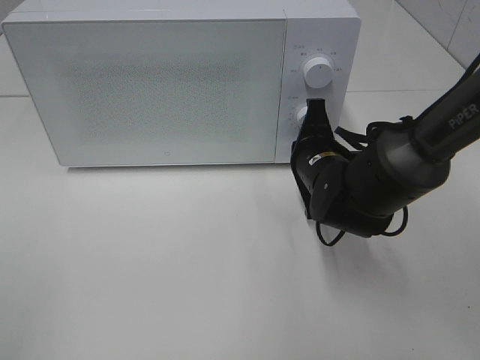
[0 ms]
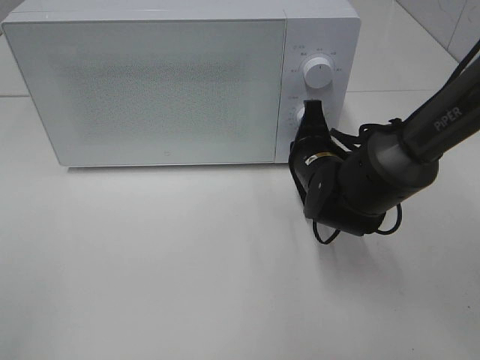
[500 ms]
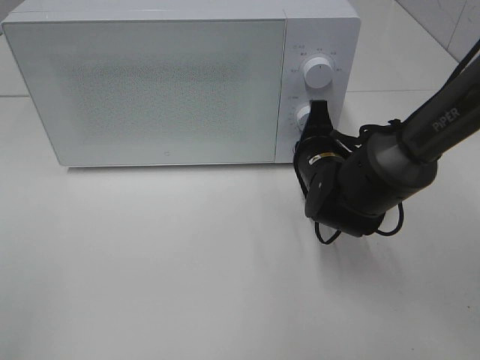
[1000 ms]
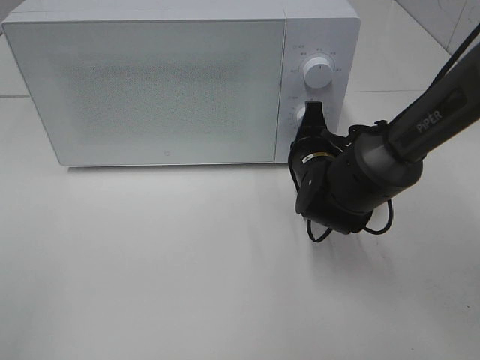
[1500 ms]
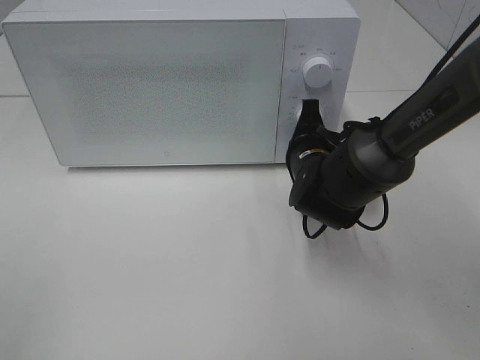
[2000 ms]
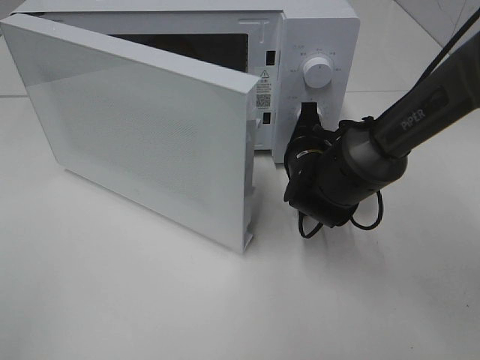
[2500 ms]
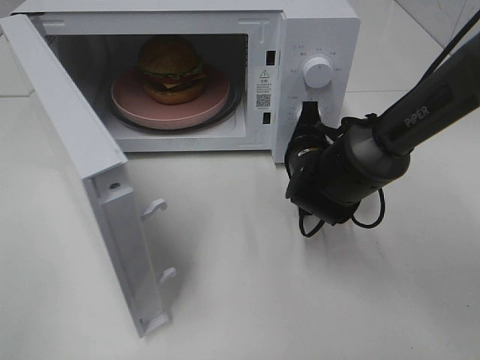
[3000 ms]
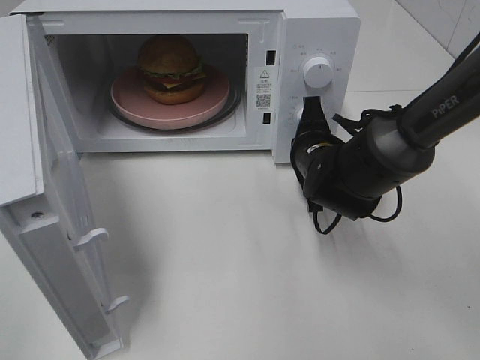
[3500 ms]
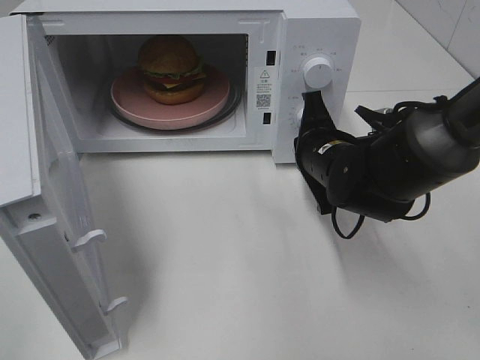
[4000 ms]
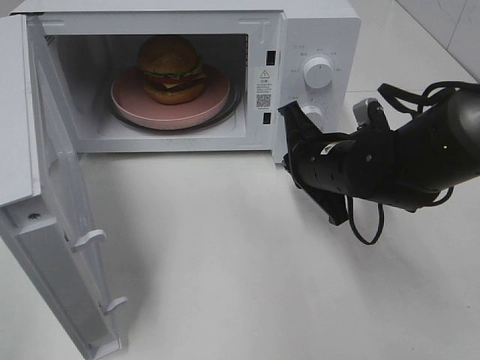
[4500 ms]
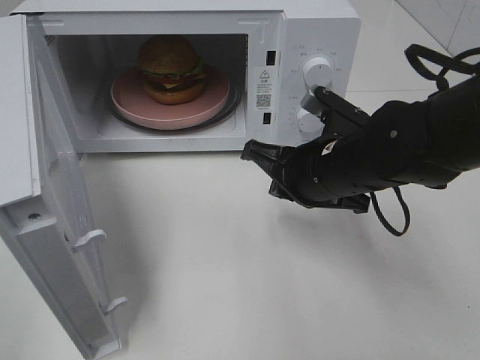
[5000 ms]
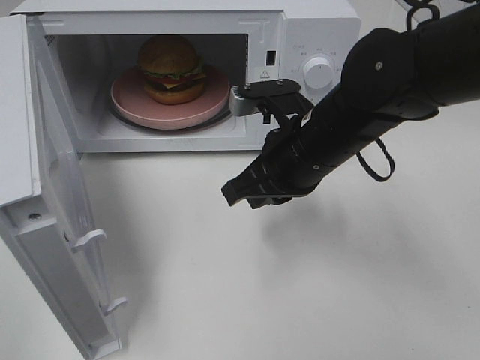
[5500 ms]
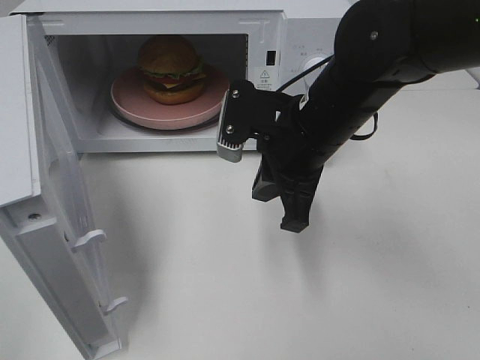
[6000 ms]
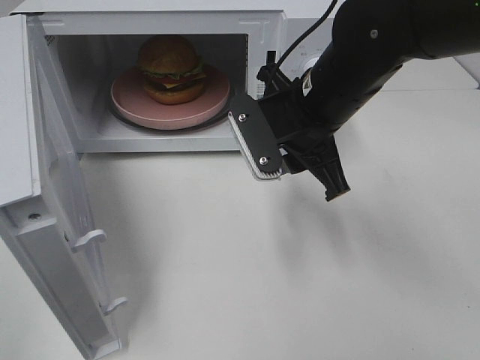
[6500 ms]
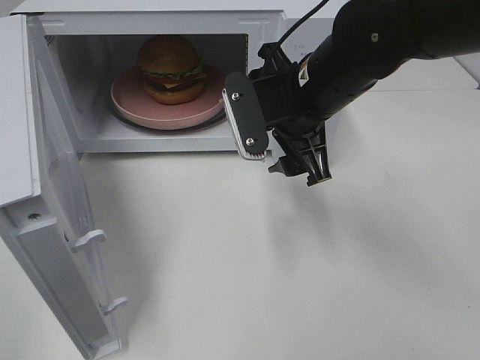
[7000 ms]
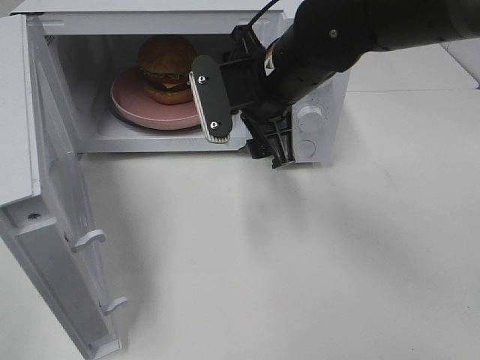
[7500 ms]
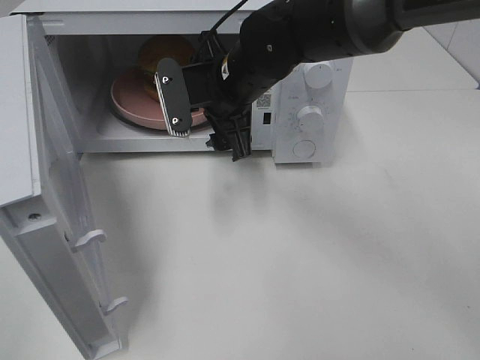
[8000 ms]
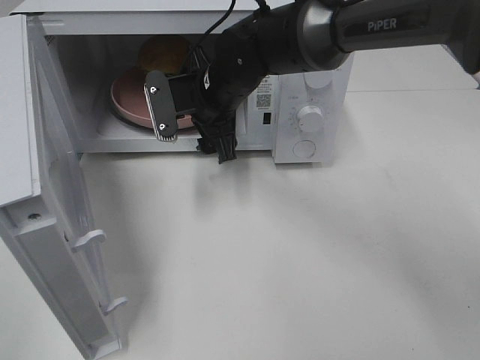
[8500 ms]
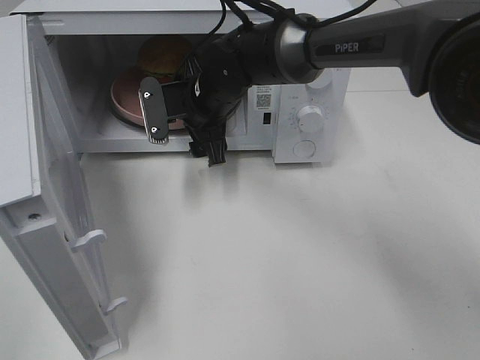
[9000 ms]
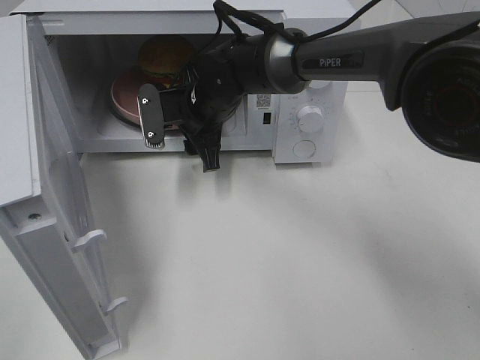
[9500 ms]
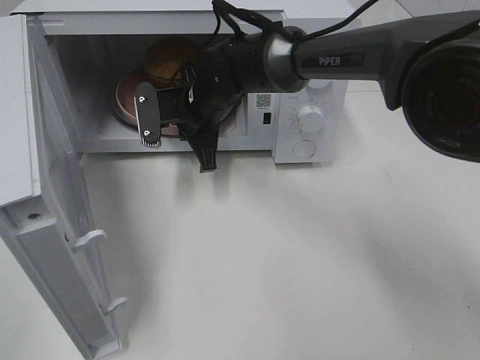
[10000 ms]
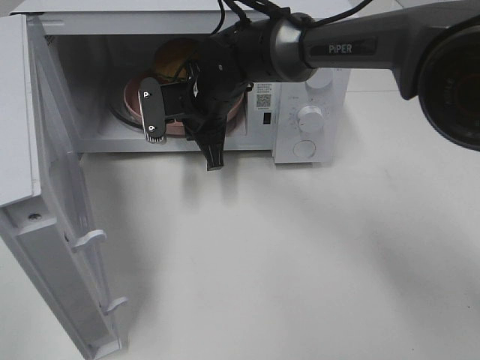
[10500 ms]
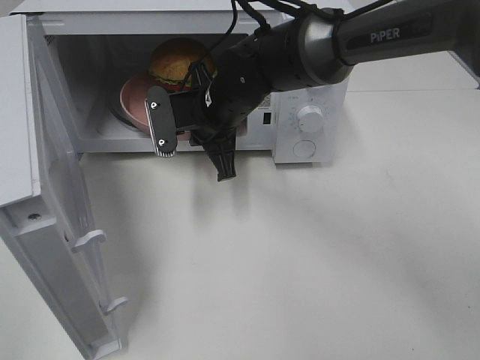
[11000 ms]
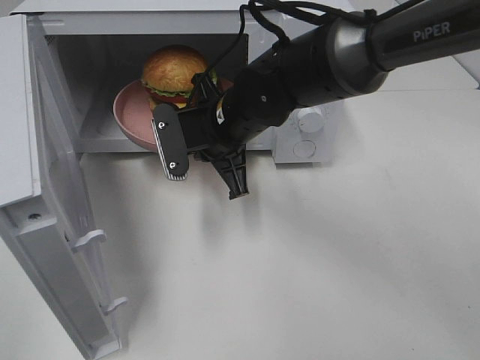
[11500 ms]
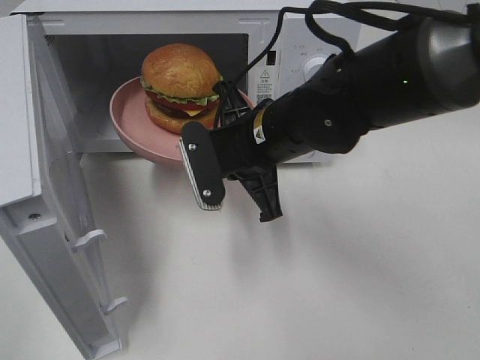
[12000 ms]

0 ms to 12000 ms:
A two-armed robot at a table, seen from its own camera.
Task of the whole recording: Heat the burger.
Step, 0 ms to 3500 ms: Right hand: press the switch.
Step, 4000 ms to 9500 ms: Right hand: grab the plate with the hamburger.
0 ms to 2000 ms: The grippers move only a little.
4000 ms to 6000 ms: The right gripper goes some 10 cm upward.
6000 ms to 8000 ms: The right gripper shifts some 10 cm forward and to the left, and opens up.
8000 ms to 10000 ms: The right gripper moves downward and forward, some 10 cm, and closes its fingers.
10000 ms to 12000 ms: The right gripper shifts roughly 15 cm backward and to the right.

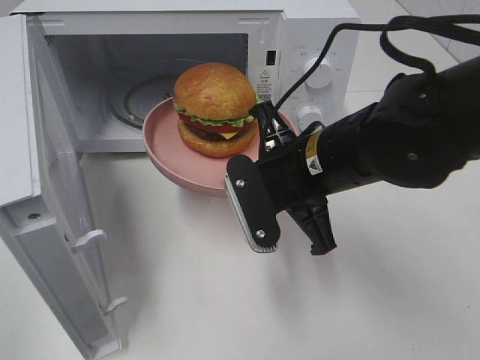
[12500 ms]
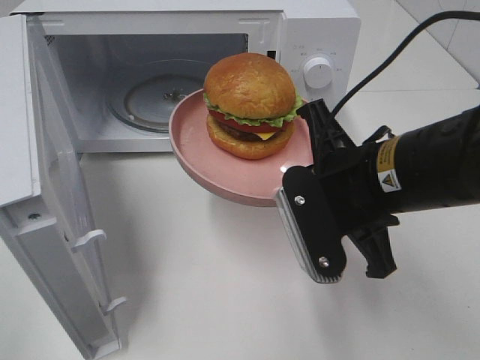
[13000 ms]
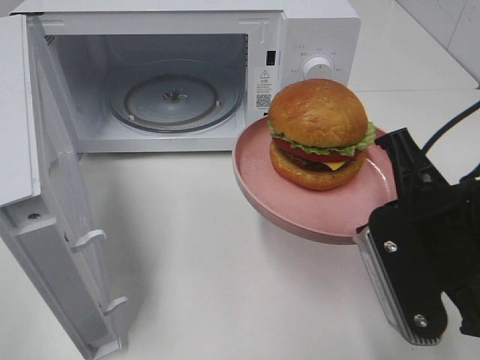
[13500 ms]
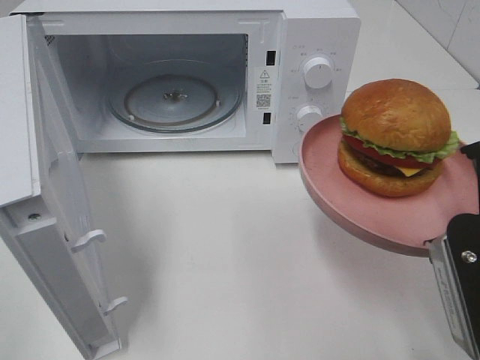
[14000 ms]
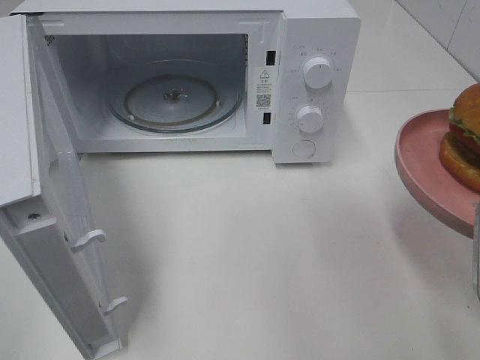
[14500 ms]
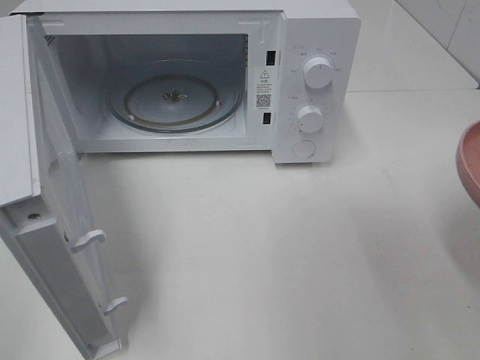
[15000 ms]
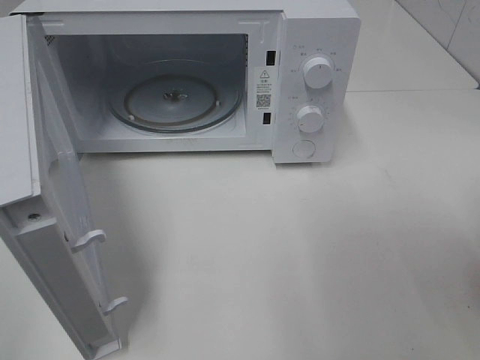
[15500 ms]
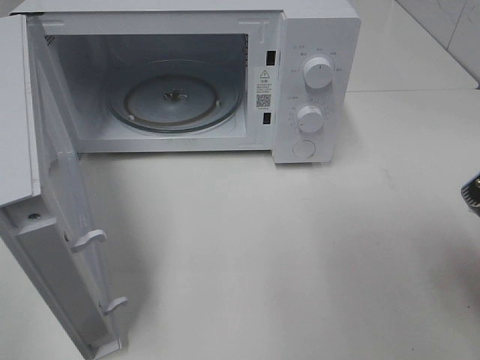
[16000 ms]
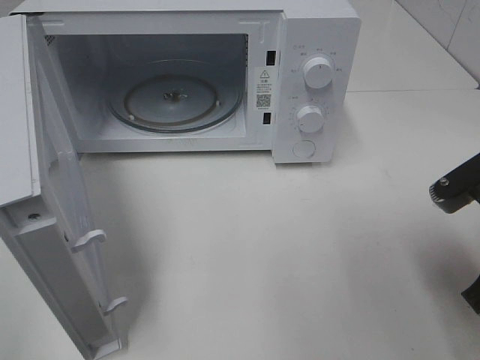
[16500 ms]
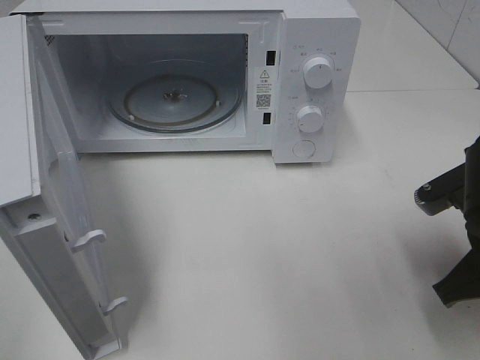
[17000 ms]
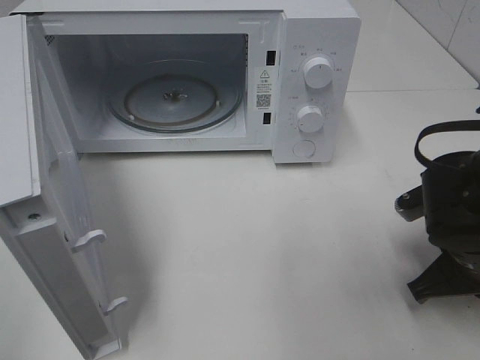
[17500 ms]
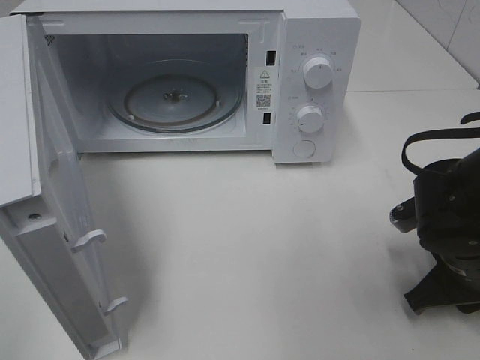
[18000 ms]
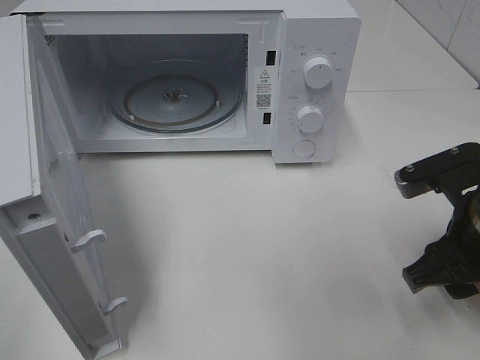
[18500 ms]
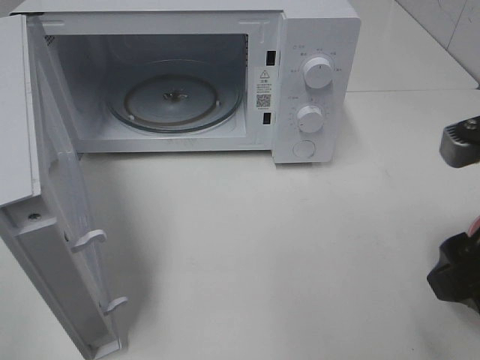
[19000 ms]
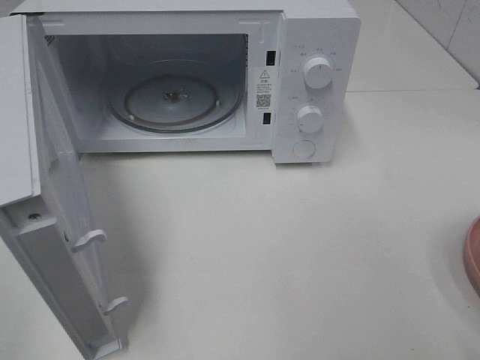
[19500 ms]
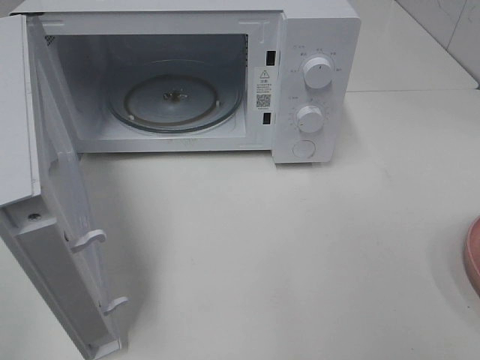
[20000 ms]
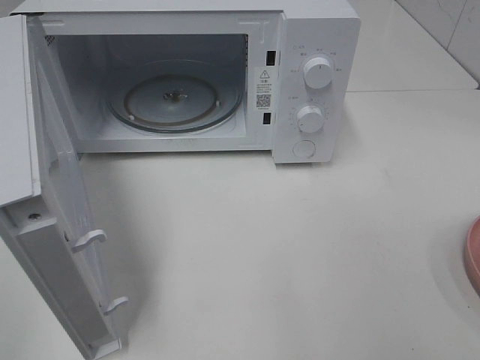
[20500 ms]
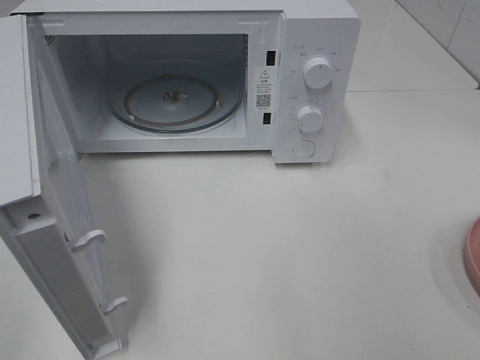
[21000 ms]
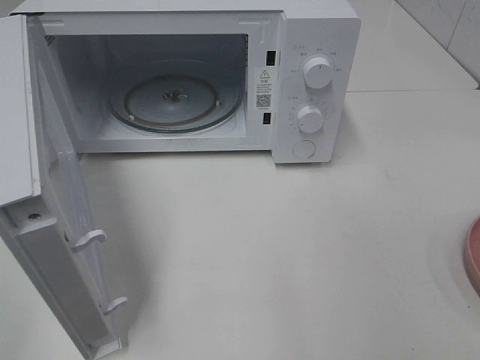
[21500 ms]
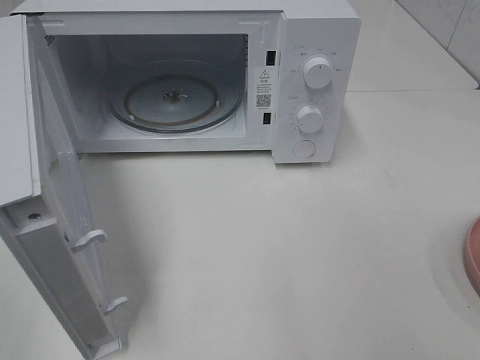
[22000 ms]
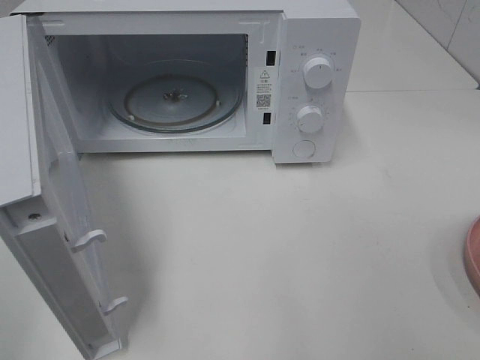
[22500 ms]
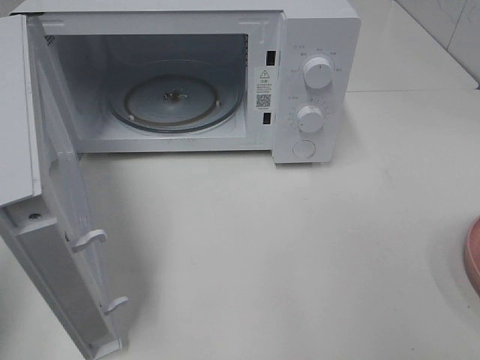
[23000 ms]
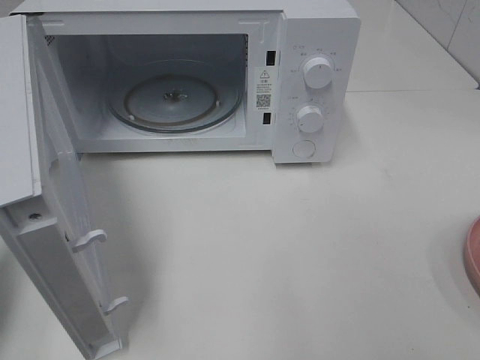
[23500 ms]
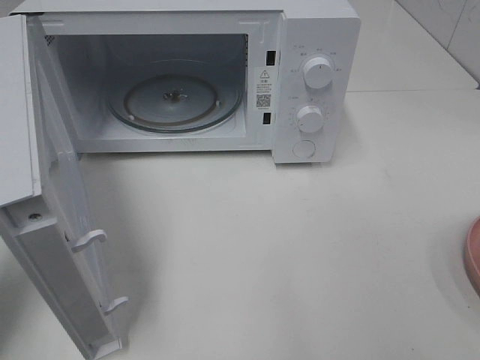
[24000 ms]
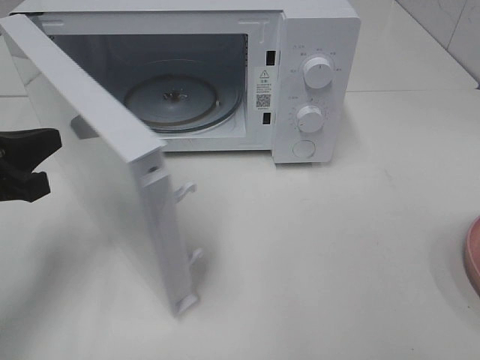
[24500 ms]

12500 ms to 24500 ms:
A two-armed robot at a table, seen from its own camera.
Task of the whole recording: Heat the burger.
Step, 12500 ms to 18000 ms: Right hand: place the plate on the table.
12500 ms to 14500 ms: The right gripper goes roughly 20 cm to the right and backward.
14500 ms to 16500 ms: The right gripper shifts by approximately 5 cm.
16500 ms to 18500 ms: The right gripper reaches roughly 10 cm downward, then returns, and opens its fingers.
18500 ms to 20500 ms: The right gripper travels backward, upward and to the right by about 25 cm.
22500 ms to 24500 ms: The left gripper heads forward and downward, covering approximately 20 cm, and closes its fingers.

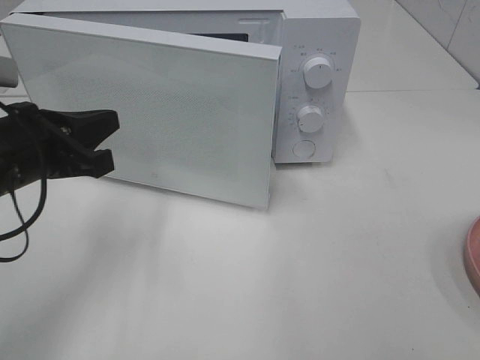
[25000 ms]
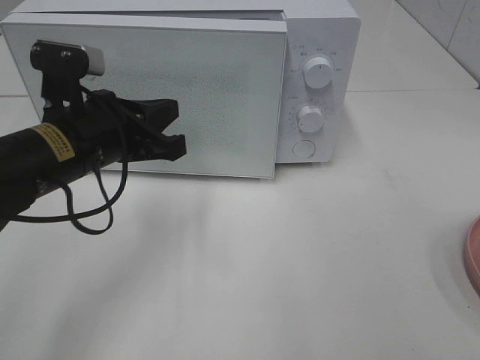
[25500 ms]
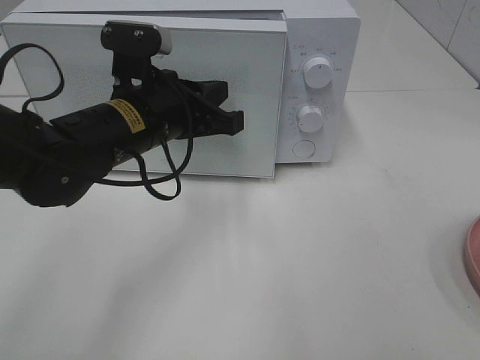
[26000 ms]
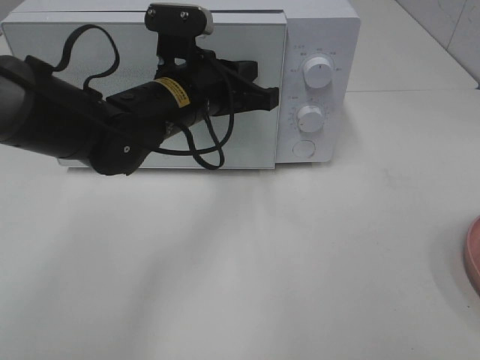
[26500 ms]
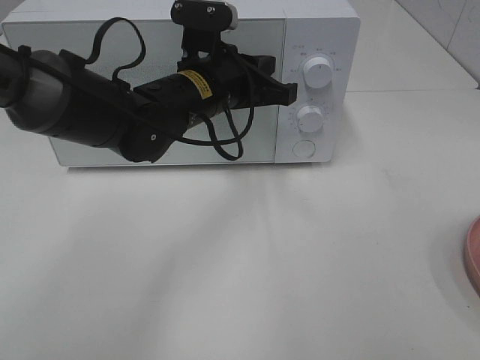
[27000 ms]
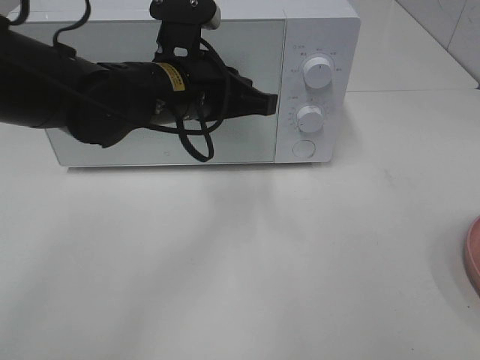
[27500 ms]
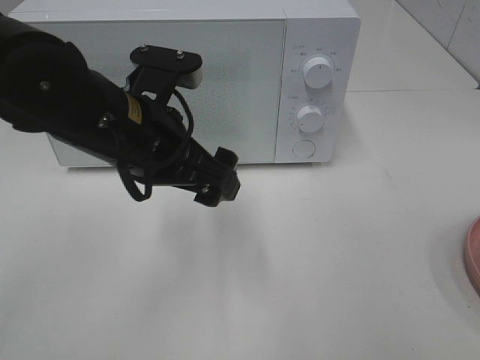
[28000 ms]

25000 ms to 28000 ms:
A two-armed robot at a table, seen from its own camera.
Task of the whole recording: Heat the burger.
Step, 25000 ms to 27000 ms: Left hand: close the microwave door.
25000 ms to 26500 ms: The left gripper is displaced to the right and forward by about 20 cm.
26500 ms to 28000 ms: The left gripper travels backward by approximately 10 cm, and opens its fingers.
